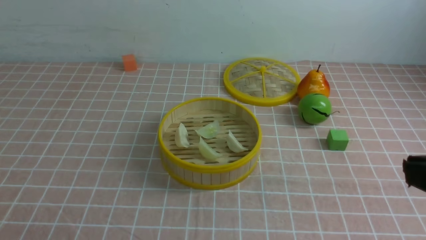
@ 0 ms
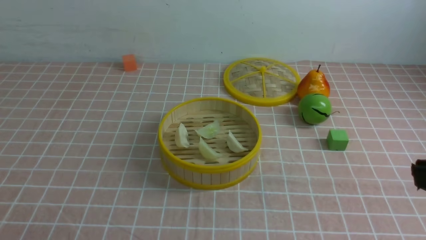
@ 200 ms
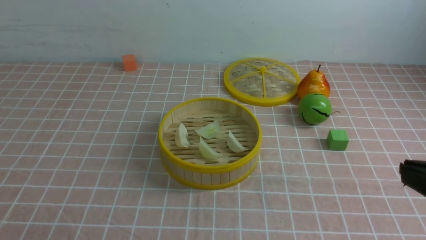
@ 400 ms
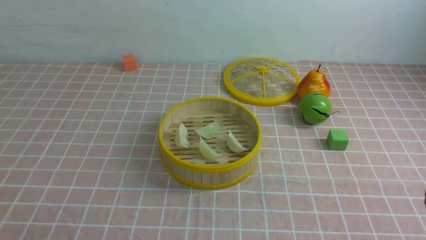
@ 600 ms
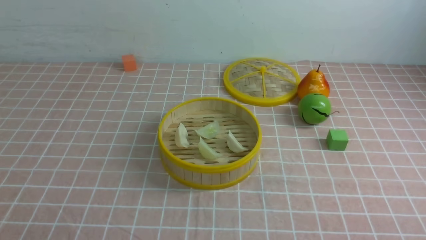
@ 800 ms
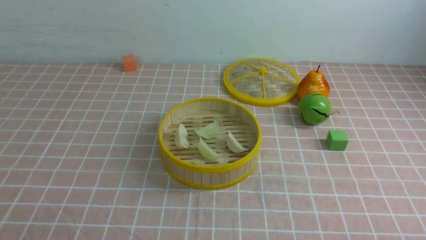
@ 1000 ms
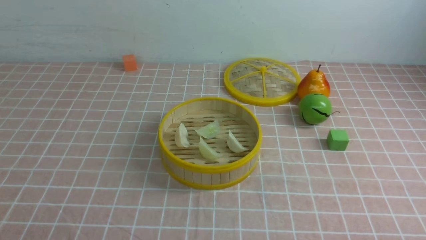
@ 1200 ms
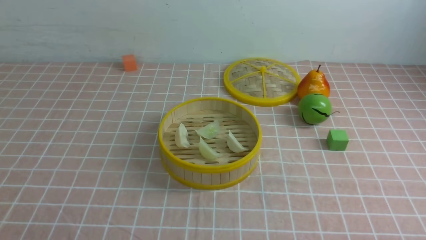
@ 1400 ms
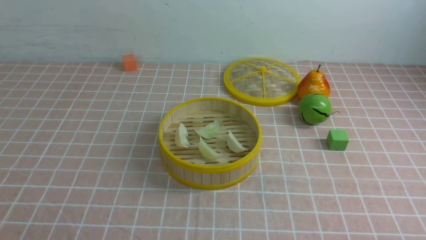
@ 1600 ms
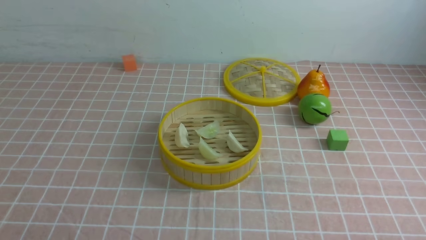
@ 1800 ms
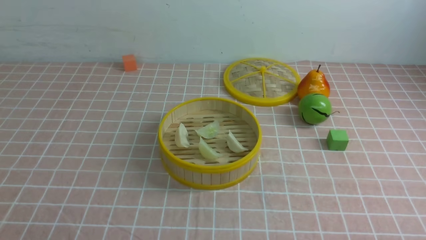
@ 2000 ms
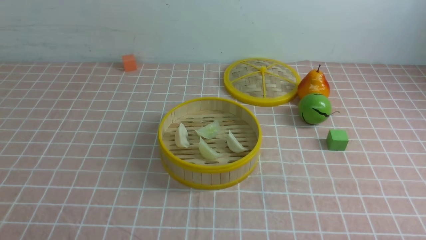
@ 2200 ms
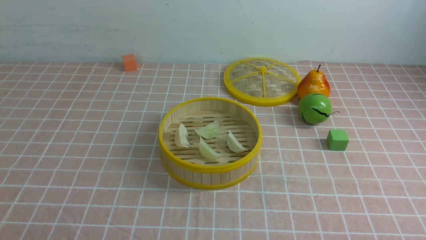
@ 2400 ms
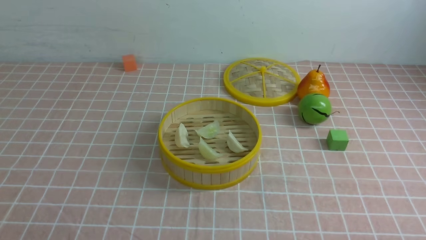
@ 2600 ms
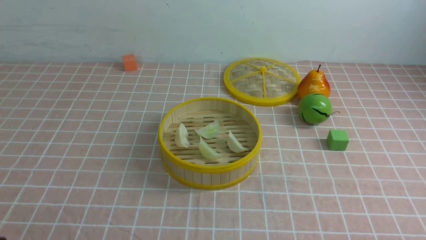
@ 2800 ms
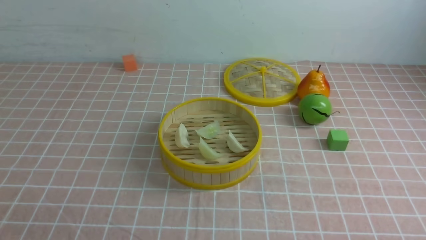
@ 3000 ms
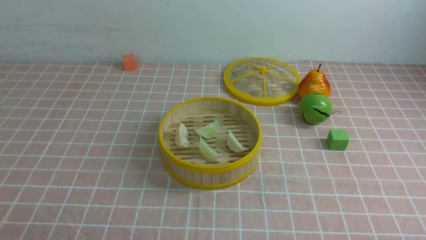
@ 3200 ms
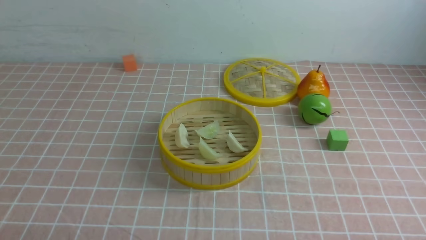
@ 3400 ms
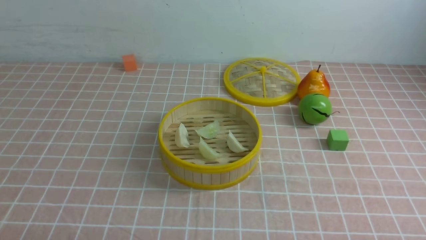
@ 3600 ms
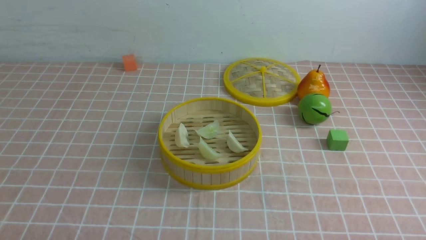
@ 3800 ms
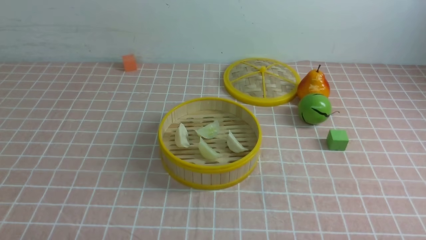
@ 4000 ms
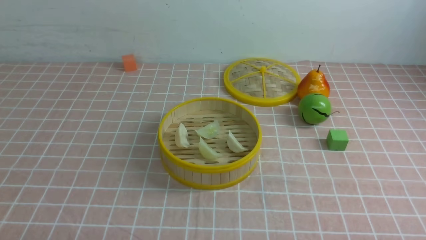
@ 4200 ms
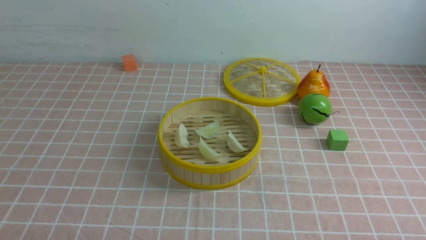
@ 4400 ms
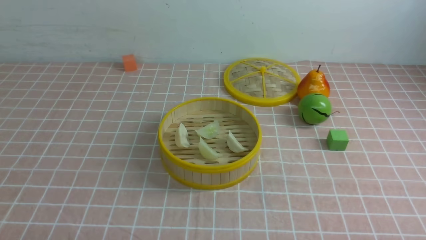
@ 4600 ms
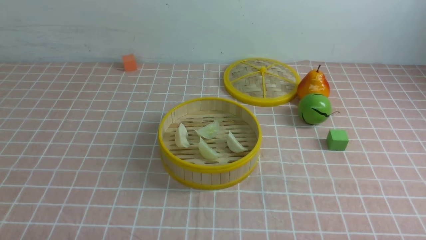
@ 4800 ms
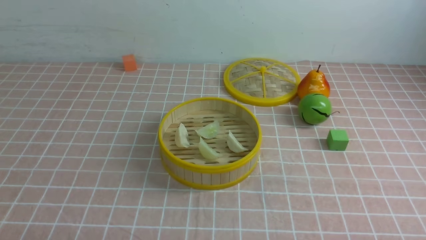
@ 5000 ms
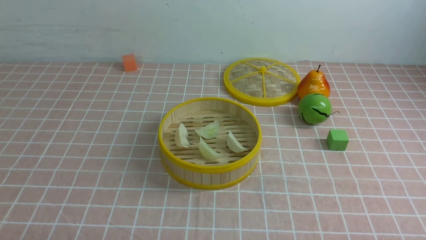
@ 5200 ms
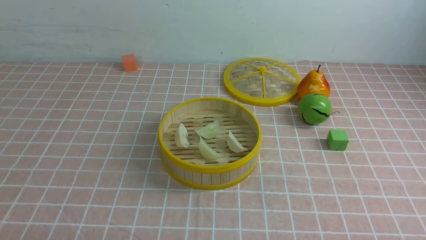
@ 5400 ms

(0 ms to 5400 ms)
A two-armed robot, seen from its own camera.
Task of the whole recording: put the dumplings into the steamer on the table with the pink tablecloth.
0 ms - 1400 ms: The right gripper shifts roughly 20 cm downward.
1400 ms - 2800 ms: Both grippers stay put.
4000 ms - 5400 ms: Neither gripper changes place.
